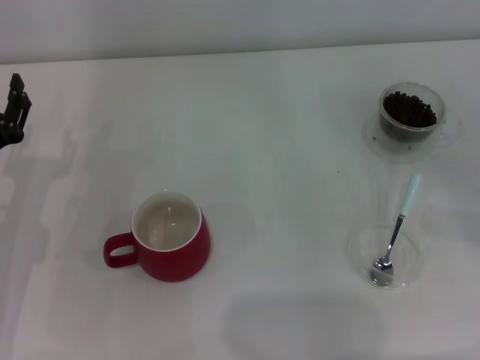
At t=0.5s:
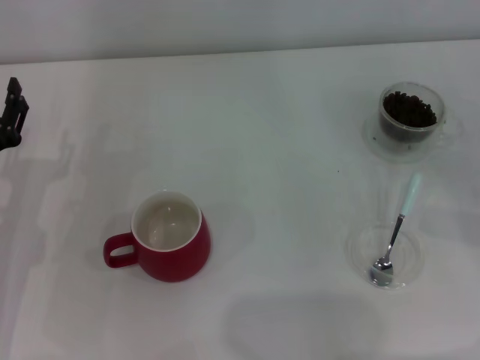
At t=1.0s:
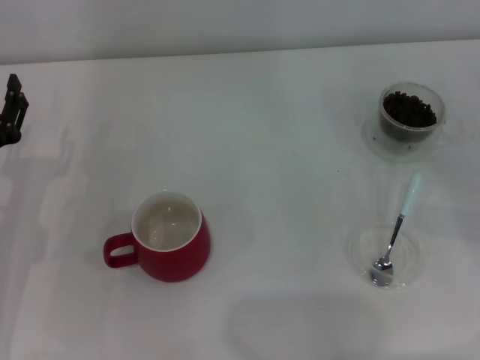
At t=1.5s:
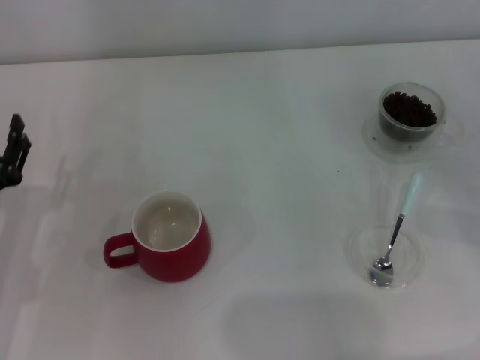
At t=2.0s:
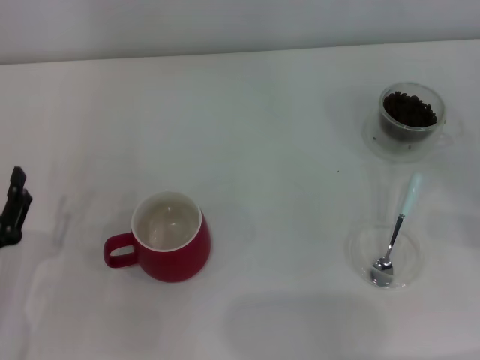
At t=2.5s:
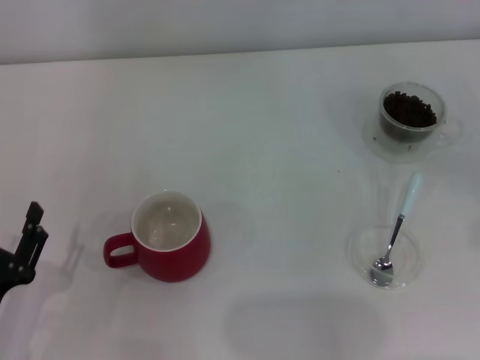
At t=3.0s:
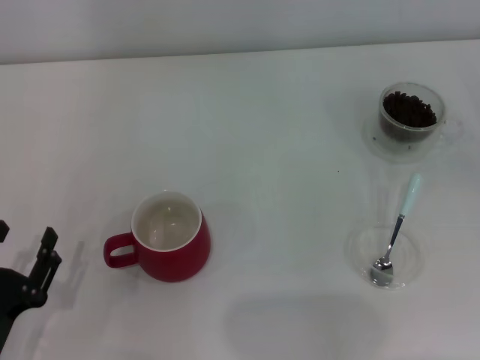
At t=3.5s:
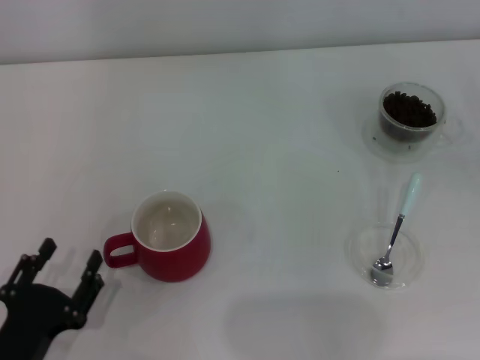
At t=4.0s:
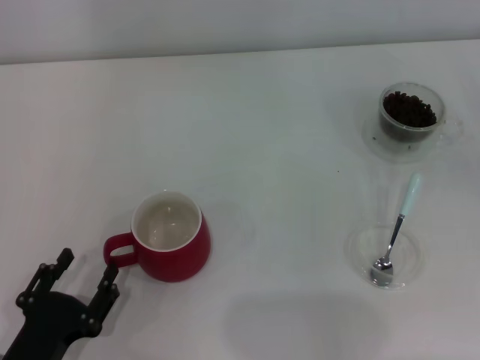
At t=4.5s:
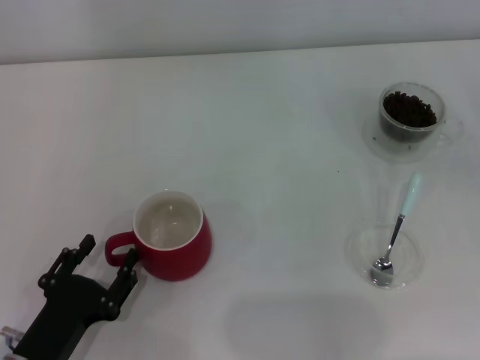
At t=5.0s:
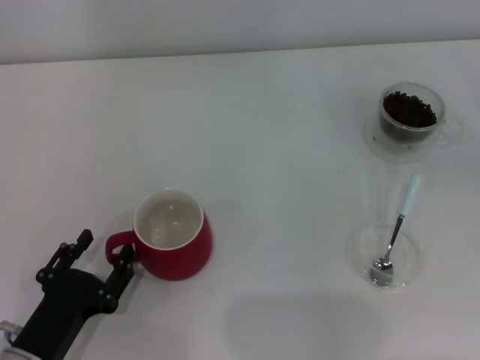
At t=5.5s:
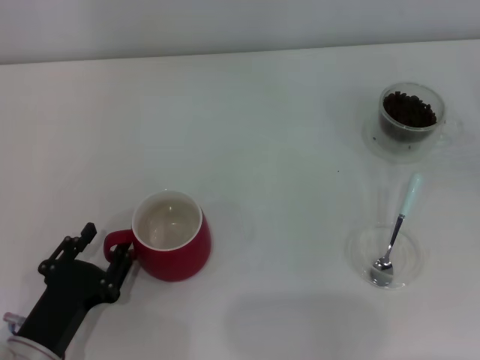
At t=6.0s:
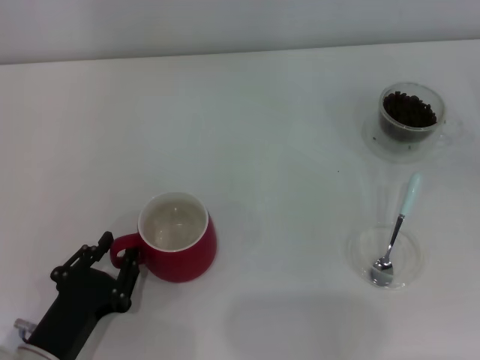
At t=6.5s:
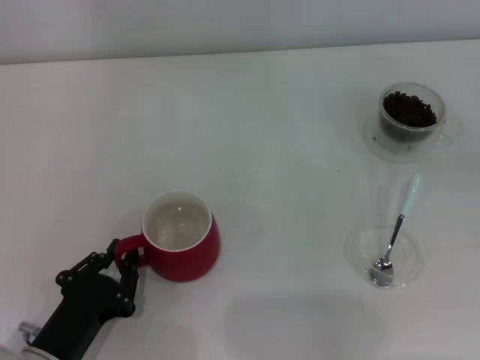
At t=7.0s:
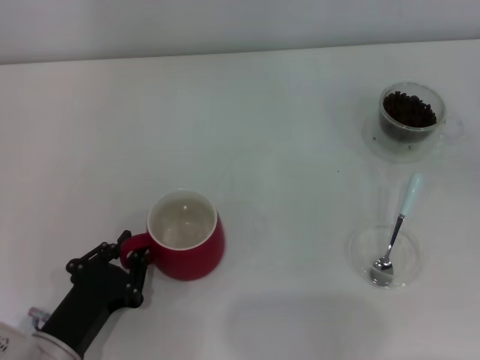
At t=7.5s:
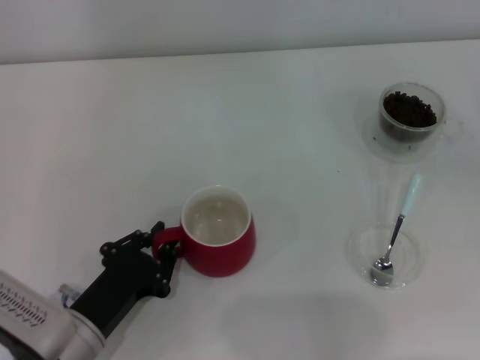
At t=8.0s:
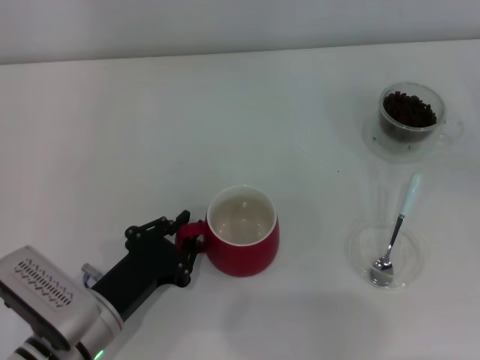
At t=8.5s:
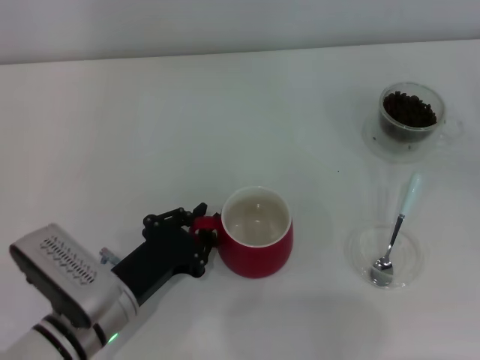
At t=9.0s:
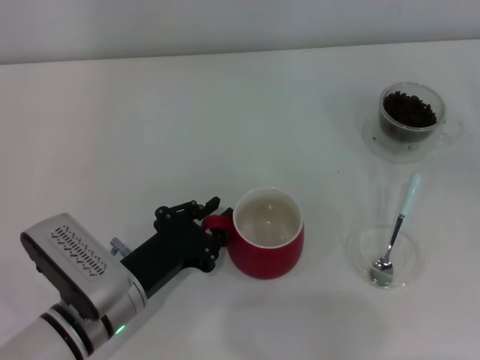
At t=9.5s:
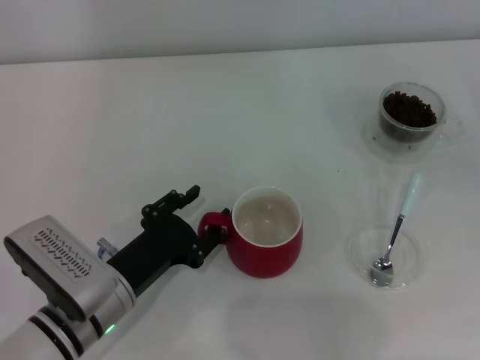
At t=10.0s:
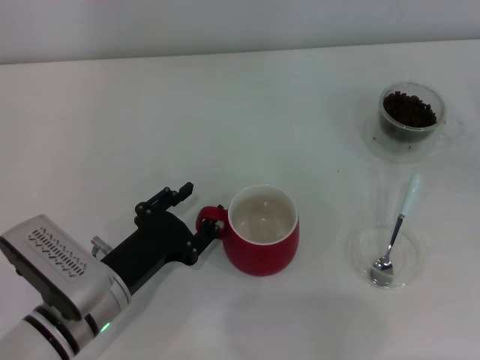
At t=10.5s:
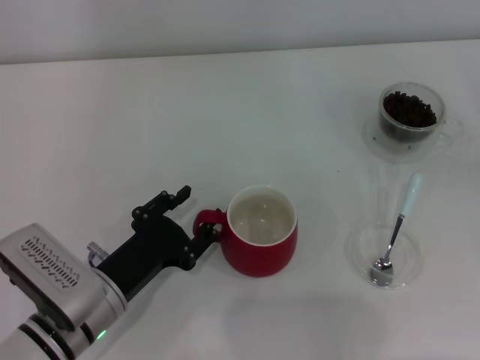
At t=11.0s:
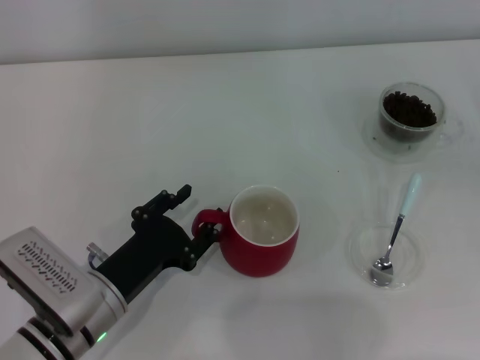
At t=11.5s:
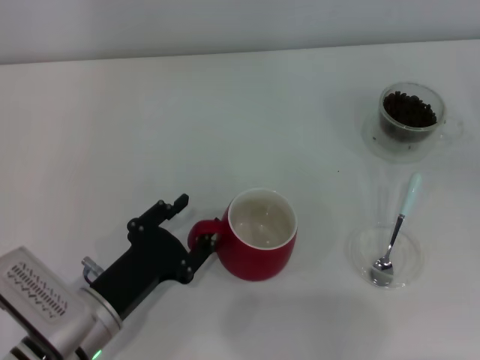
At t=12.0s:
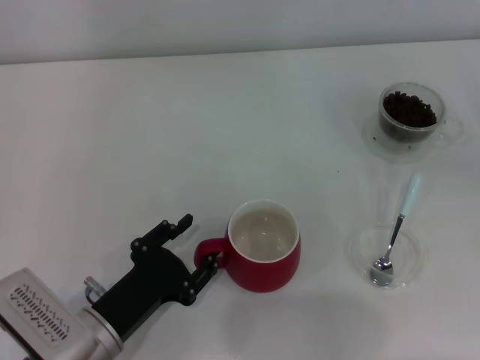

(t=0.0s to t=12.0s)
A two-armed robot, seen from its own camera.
Task of the whole recording: Use a blue spoon to take out the coffee beans from the glass and pour them into the red cup.
t=0.0s - t=2.0s: The left gripper travels backward by roughly 10 cm.
t=2.0s - t=4.0s: The left gripper heads backward, covering approximately 5 cm.
t=4.0s - t=6.0s: The left gripper closes up.
t=6.0s - t=8.0s: The left gripper changes place by some 5 cm, and closes.
t=8.0s - t=10.0s: The left gripper opens its fingers.
t=10.0s - t=12.0s: The grippers stay close to where they were, moving slightly.

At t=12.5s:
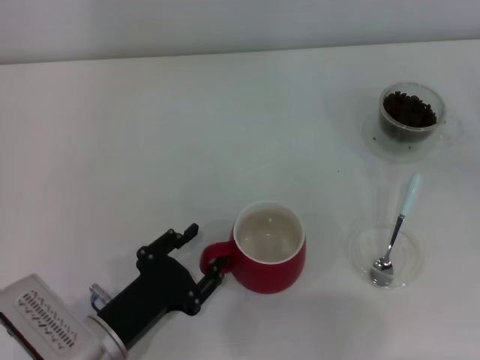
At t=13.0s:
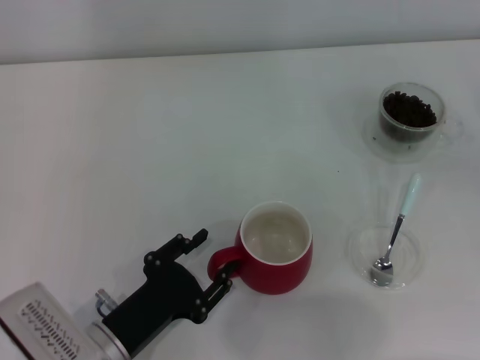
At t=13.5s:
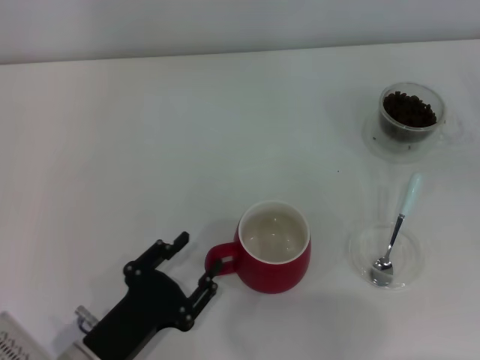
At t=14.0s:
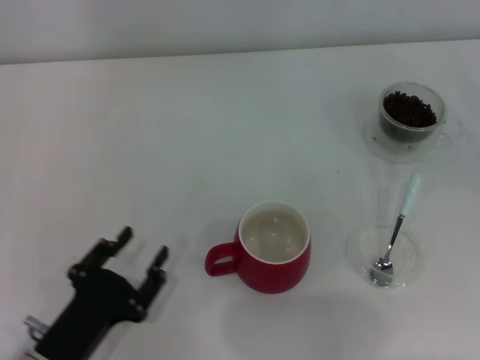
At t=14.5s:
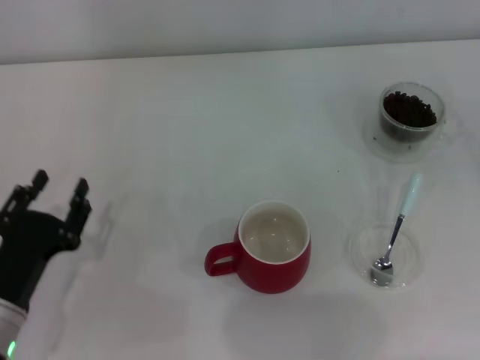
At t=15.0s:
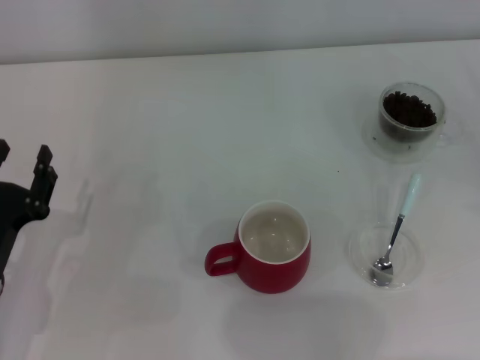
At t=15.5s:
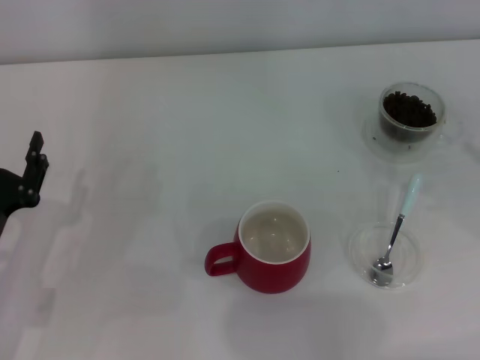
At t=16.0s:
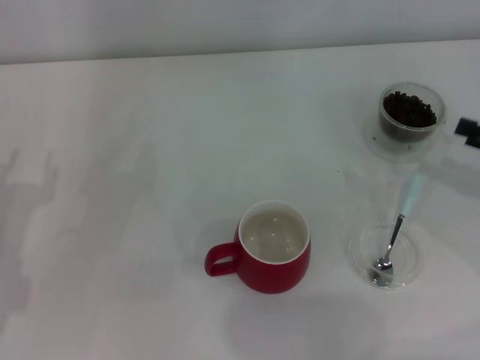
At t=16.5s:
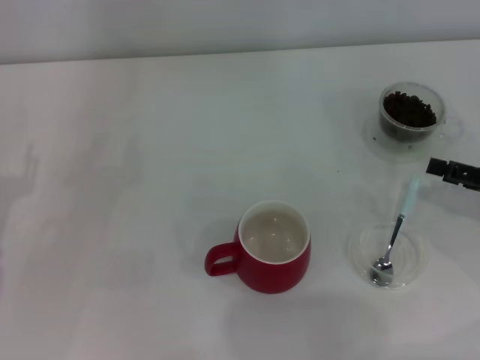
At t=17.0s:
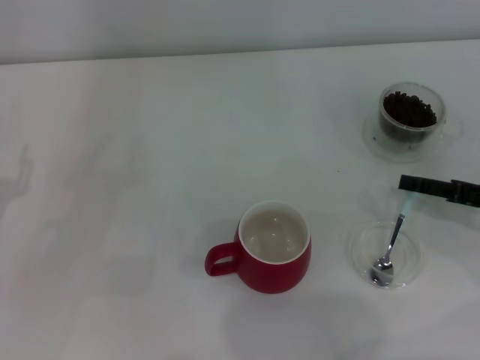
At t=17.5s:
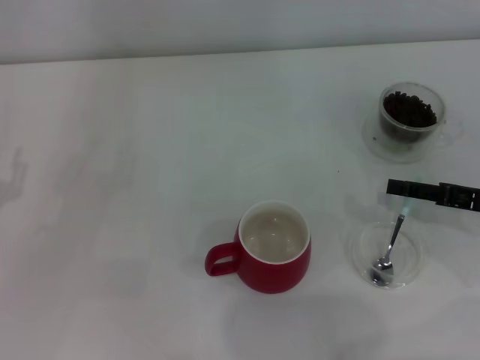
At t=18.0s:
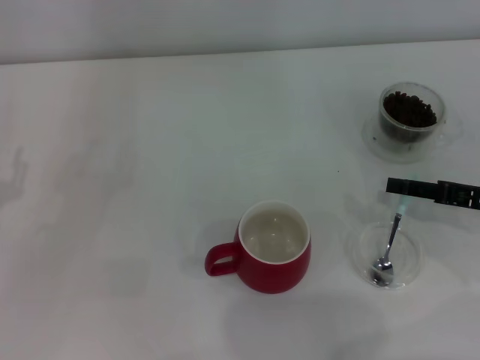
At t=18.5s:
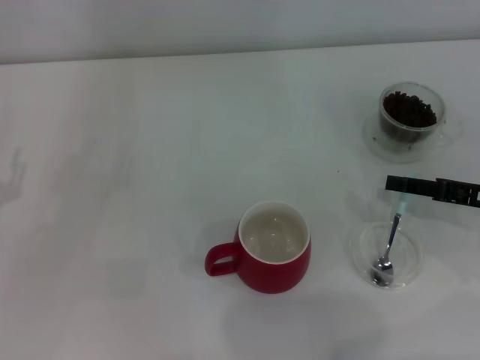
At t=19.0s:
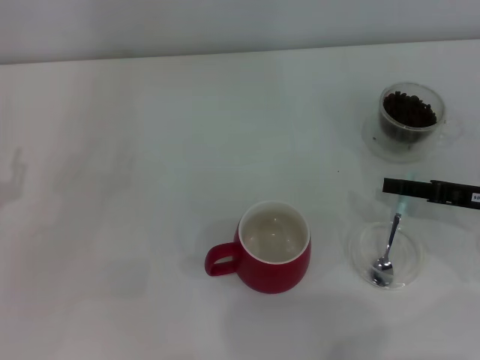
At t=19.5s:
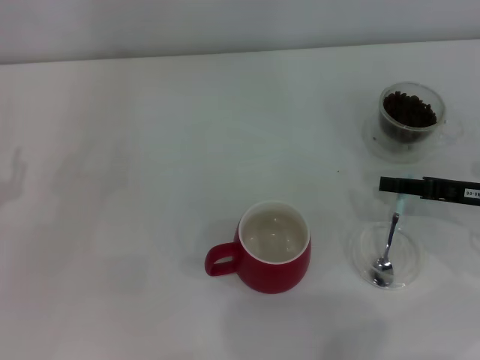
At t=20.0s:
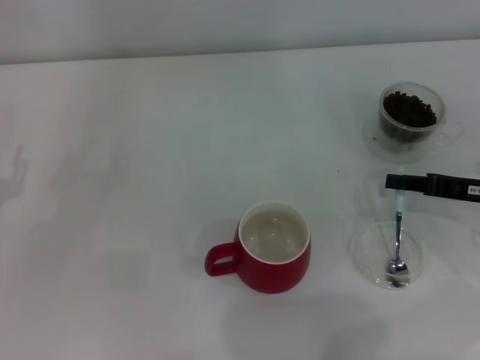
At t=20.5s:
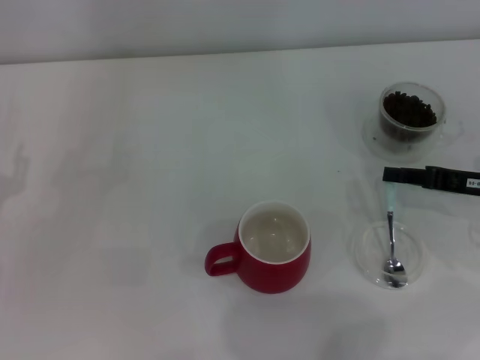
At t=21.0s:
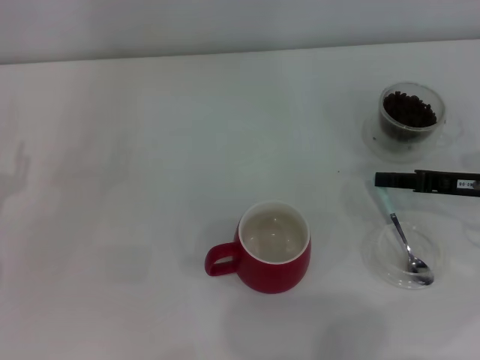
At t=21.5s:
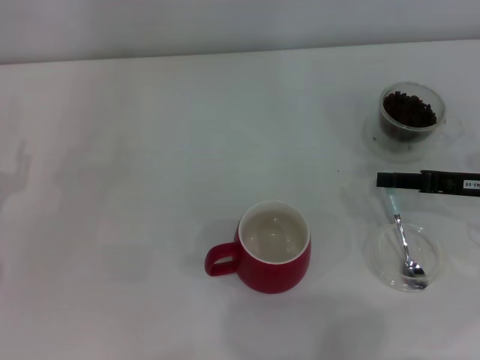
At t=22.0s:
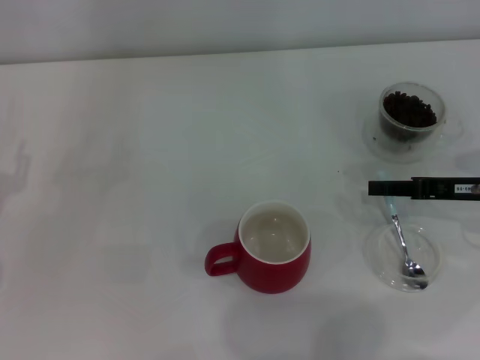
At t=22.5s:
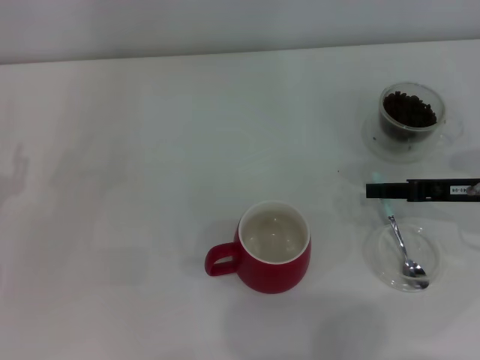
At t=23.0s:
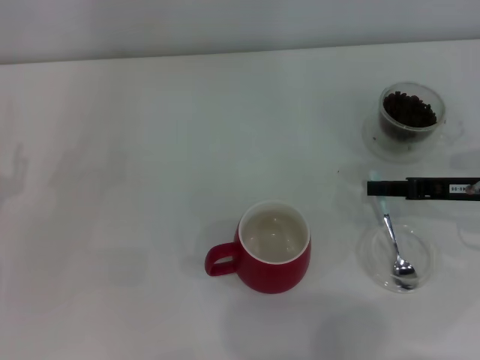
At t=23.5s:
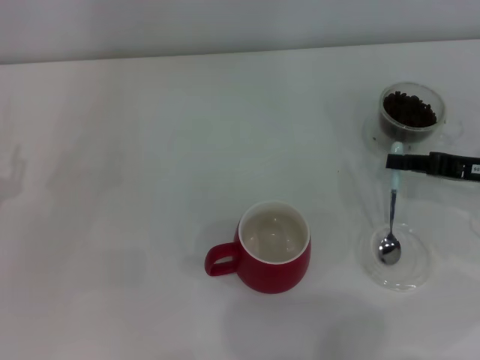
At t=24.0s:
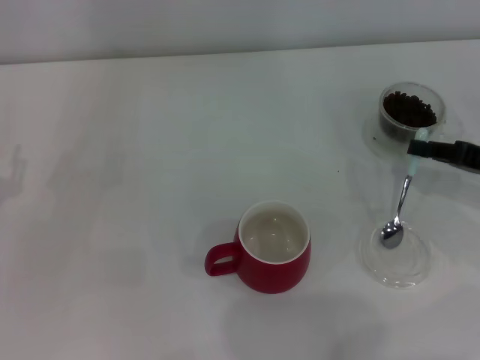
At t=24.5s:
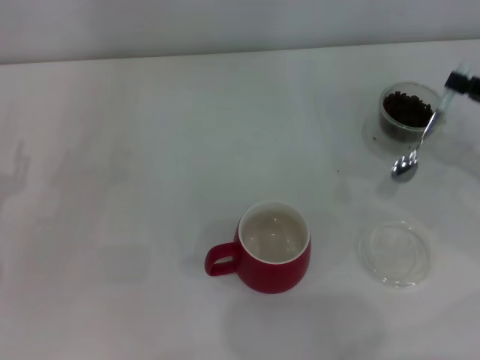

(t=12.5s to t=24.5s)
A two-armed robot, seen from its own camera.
Task of the whole recording: Use a blue spoon to take out the coffee beans from the glass and pour them into the red cup.
Step, t=14.5s - t=24.0s: Pick up the spoon with the right gripper.
t=12.5s - t=14.5s: The left gripper moves to the left, about 5 cm.
t=14.5s - t=16.5s: The right gripper is displaced to the left by roughly 10 cm, while the left gripper travels to the left and forward by about 10 cm.
t=16.5s - t=18.5s: There are only small adjustments of the grippers.
t=18.5s - t=20.5s: The right gripper closes its fingers.
t=20.5s - t=22.5s: There are only small adjustments of the grippers.
t=22.5s - t=24.5s: The right gripper goes some 5 cm to the right.

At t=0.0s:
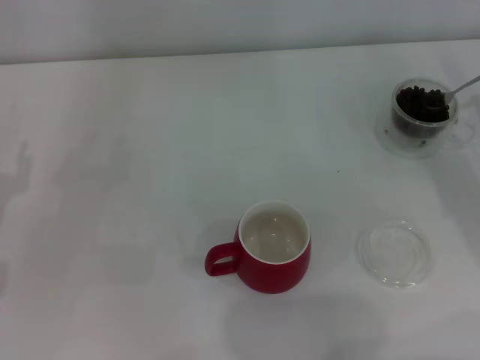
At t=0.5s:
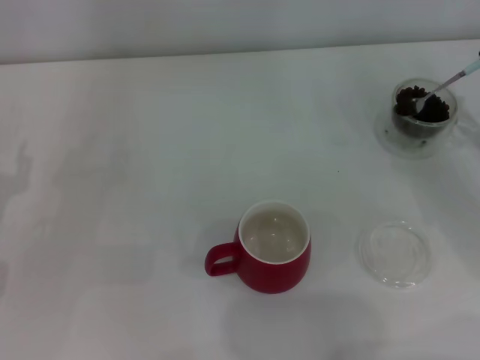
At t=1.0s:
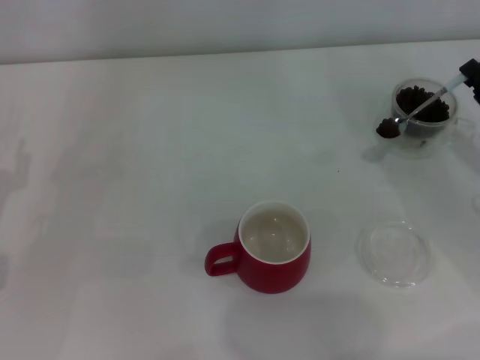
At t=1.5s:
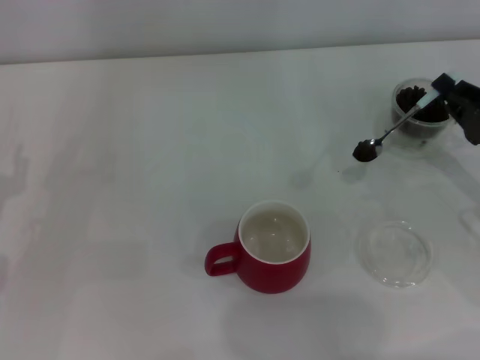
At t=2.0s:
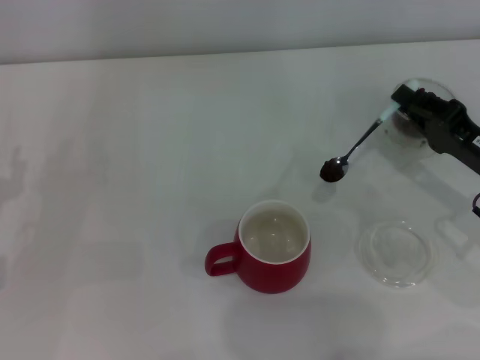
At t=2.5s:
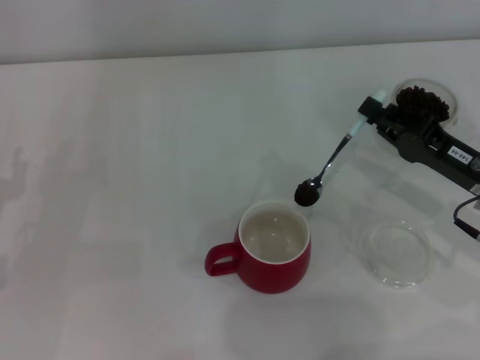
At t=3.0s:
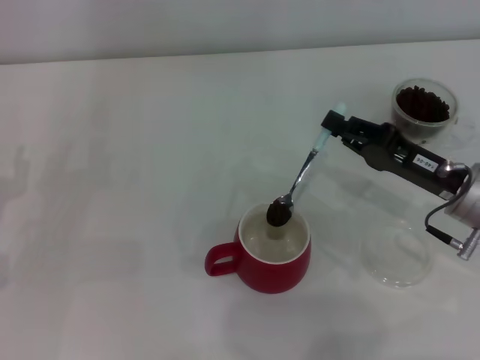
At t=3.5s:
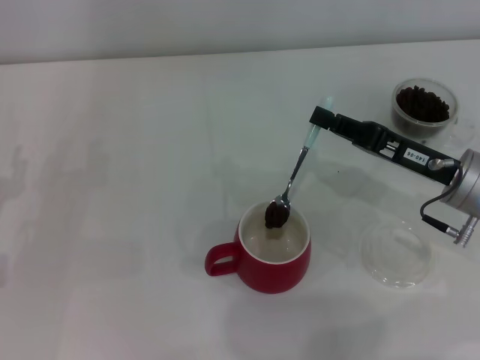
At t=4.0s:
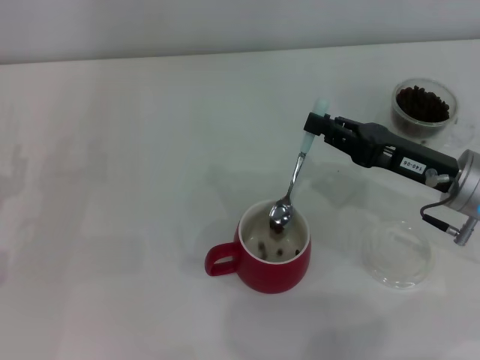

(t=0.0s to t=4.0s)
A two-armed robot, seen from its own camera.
Task of the whole recording: Use a blue spoon to take out the coffee beans from the glass and pour them into the red cup.
t=0.0s - t=2.0s: The right gripper goes roughly 10 cm to the left.
t=2.0s - t=4.0s: The right gripper moves to the left, some 5 cm.
